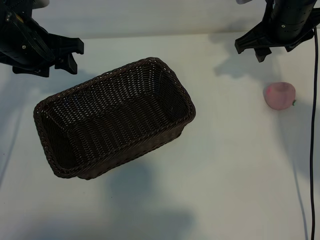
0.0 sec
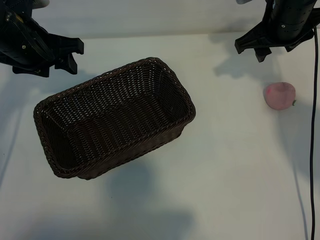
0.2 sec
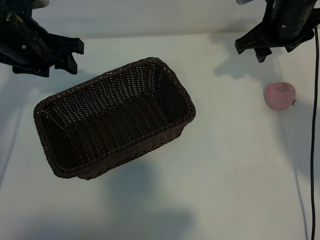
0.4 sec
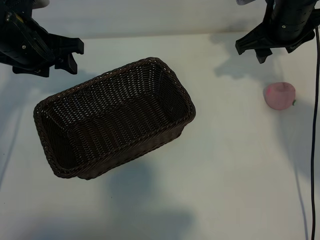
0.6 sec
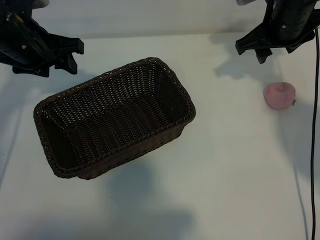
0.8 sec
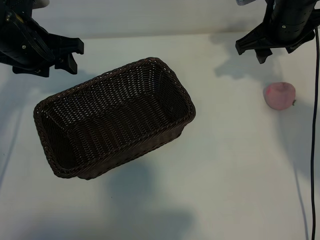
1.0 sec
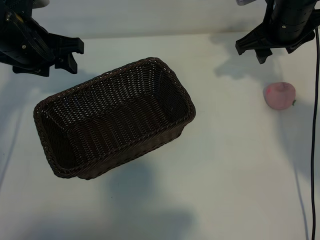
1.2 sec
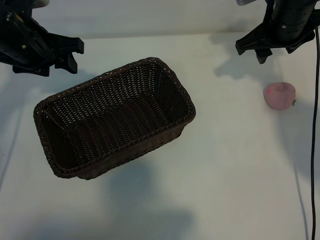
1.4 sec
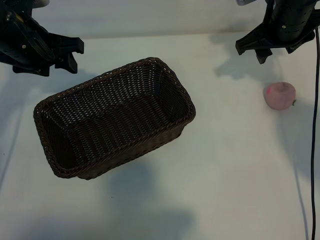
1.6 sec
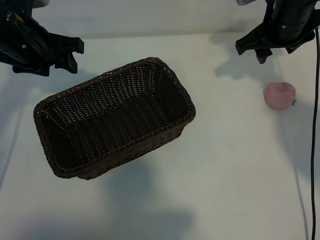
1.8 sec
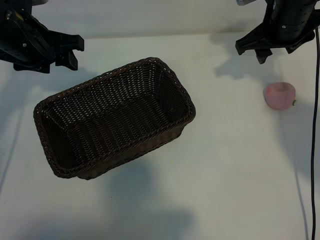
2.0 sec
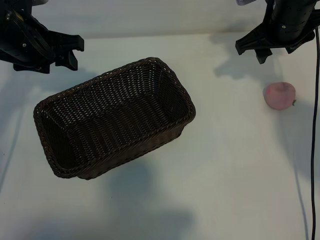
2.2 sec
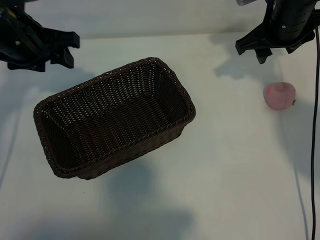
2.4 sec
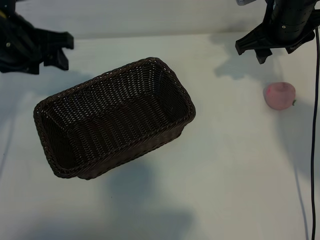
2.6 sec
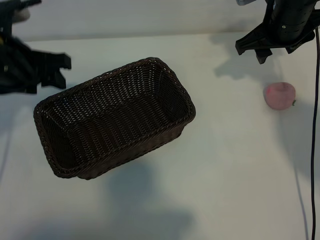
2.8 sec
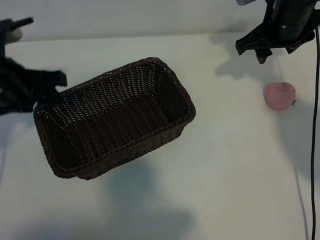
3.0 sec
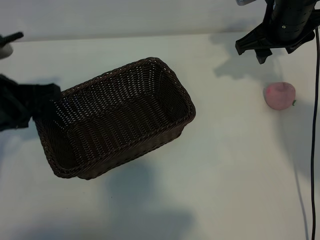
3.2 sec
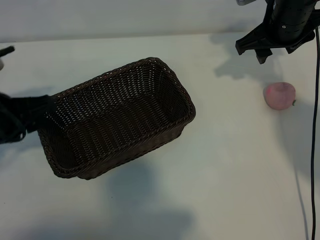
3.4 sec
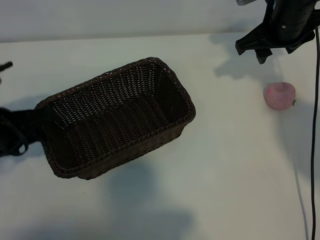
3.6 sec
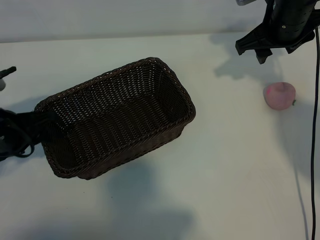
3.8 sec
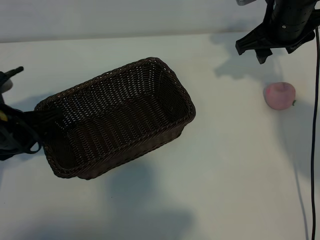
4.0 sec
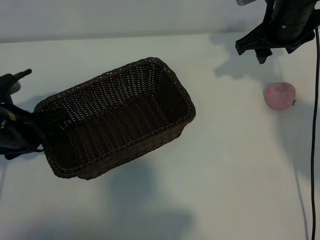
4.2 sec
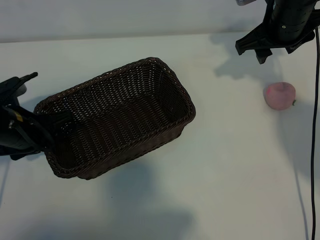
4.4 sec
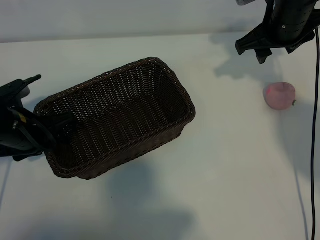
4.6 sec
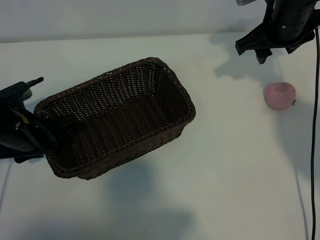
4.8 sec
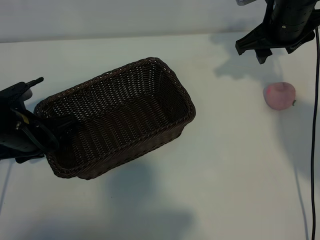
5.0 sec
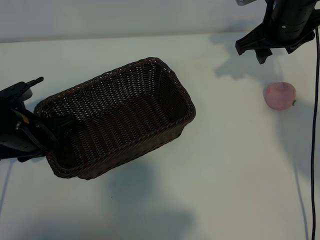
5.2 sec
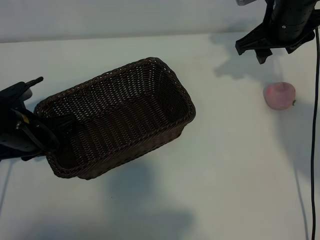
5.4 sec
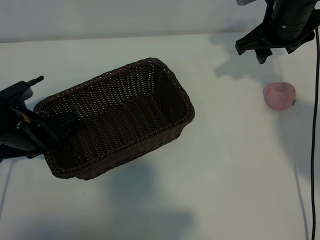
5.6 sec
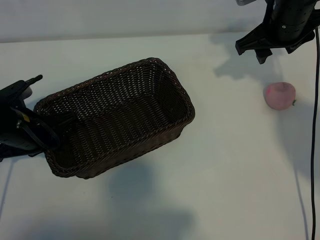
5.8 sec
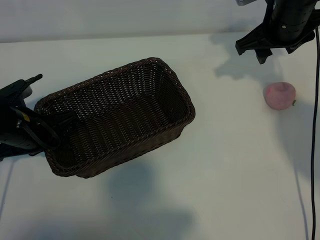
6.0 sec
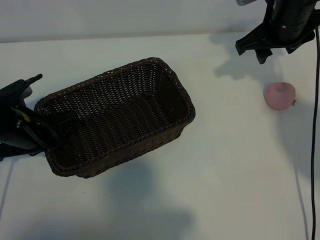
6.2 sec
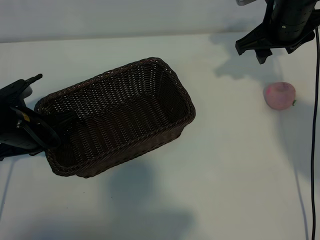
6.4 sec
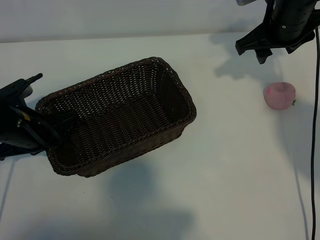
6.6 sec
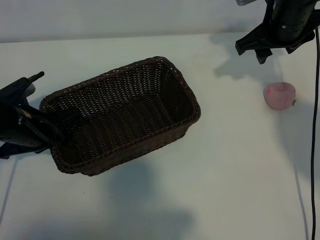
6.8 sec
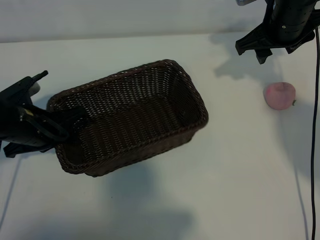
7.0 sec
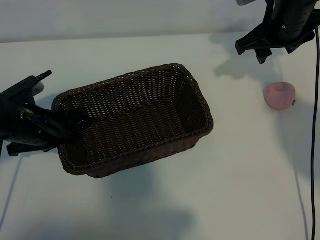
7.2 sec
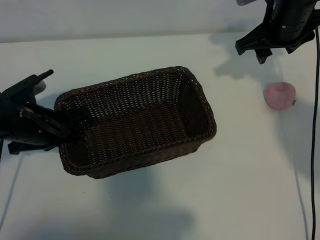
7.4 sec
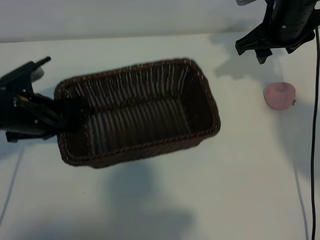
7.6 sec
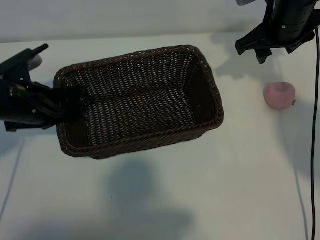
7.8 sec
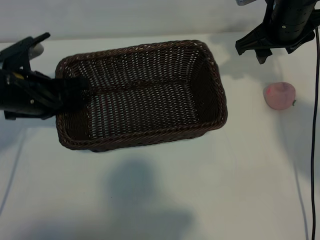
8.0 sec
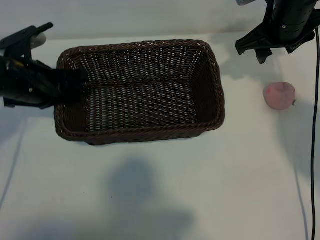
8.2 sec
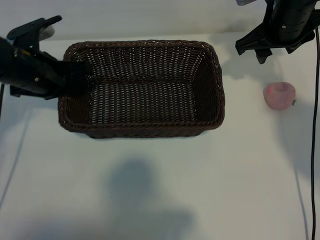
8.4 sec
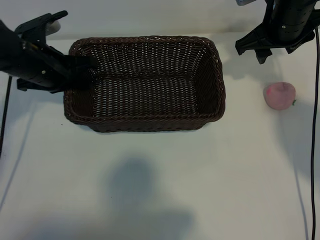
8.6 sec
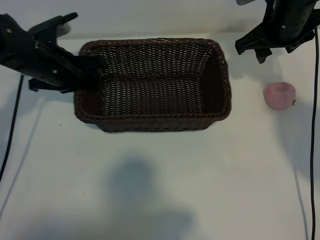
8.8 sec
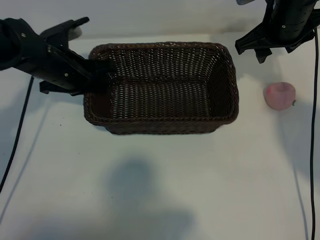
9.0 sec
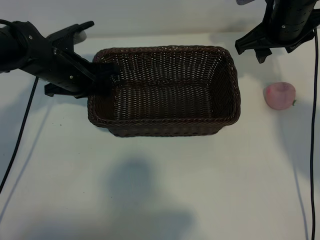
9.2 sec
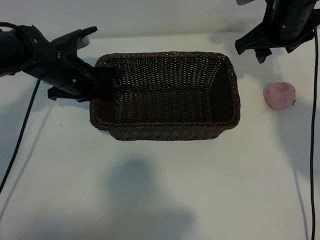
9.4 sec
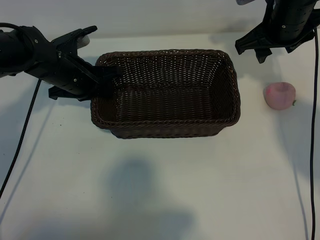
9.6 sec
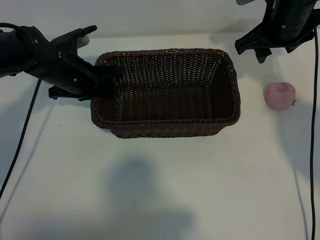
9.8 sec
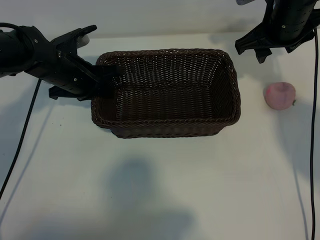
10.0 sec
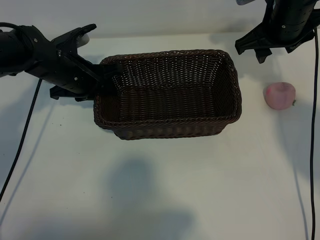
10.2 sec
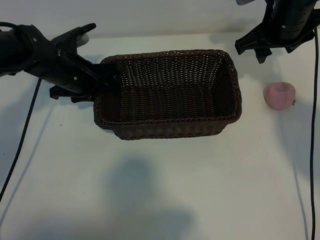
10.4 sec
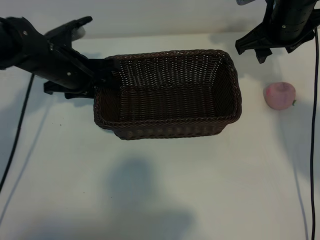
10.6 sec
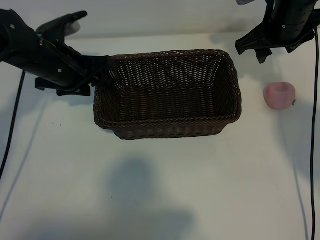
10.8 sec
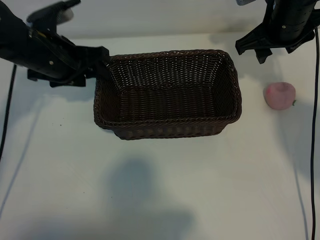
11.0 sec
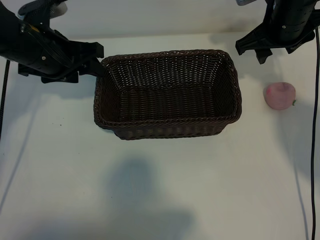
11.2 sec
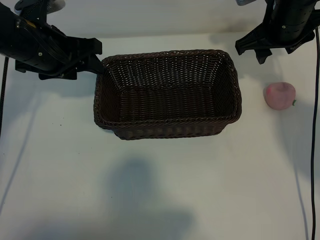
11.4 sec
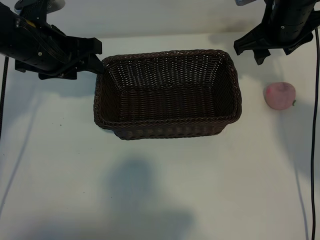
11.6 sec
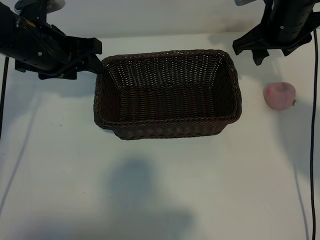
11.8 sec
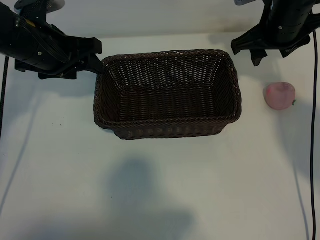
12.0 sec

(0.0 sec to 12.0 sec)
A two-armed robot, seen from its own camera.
Task of the whole recording: pick up the peach and put it into the basket.
Step, 2.2 sec - 5.8 sec: Grasp the basket with left gripper.
Step, 6.2 sec - 10.6 sec: Place the basket in the center of view with left gripper.

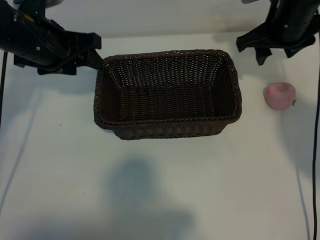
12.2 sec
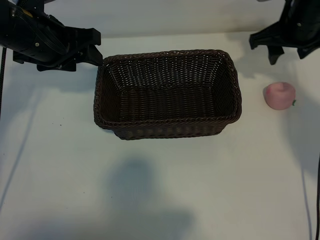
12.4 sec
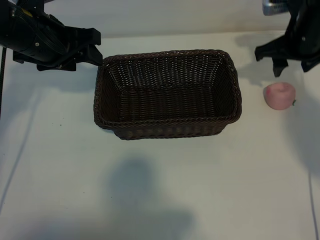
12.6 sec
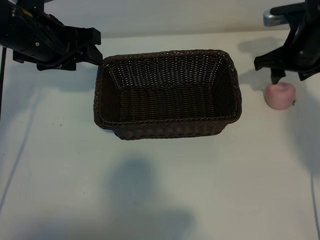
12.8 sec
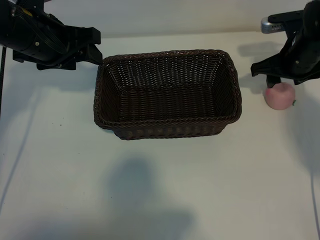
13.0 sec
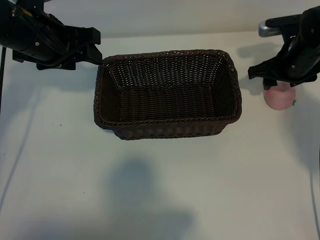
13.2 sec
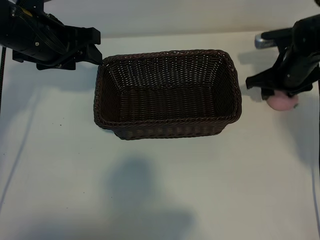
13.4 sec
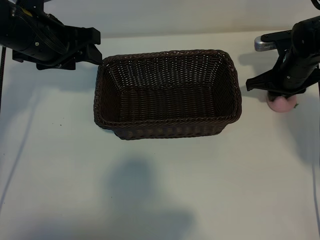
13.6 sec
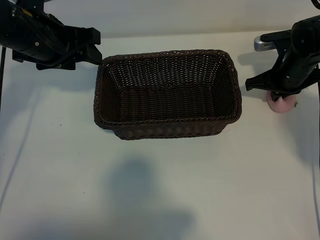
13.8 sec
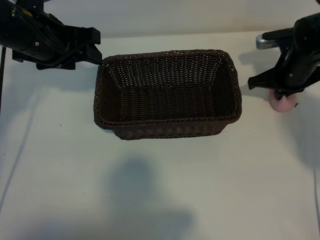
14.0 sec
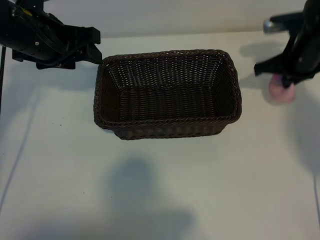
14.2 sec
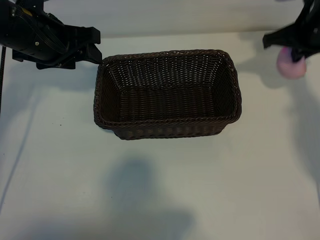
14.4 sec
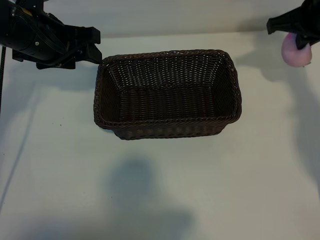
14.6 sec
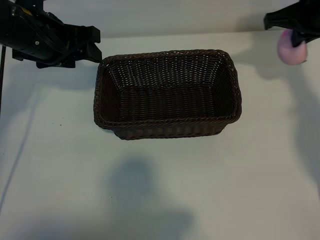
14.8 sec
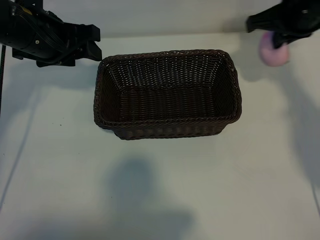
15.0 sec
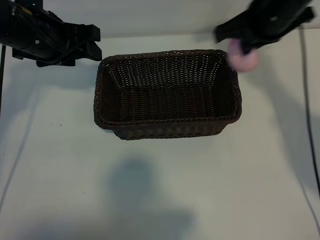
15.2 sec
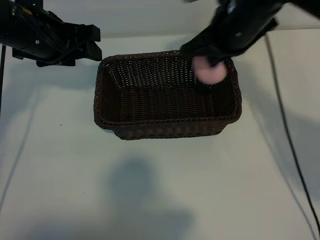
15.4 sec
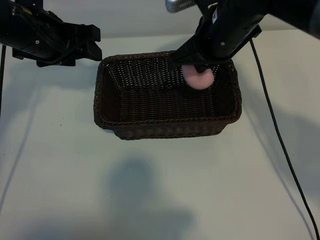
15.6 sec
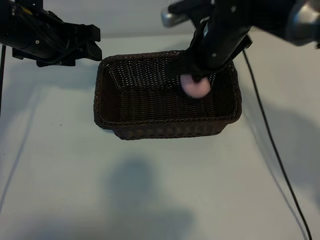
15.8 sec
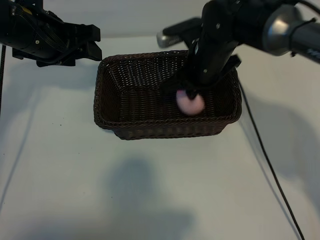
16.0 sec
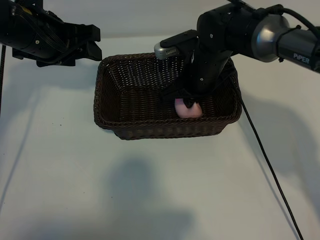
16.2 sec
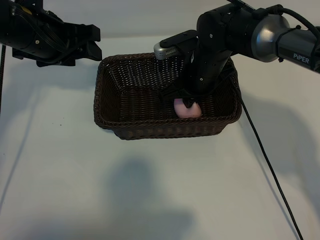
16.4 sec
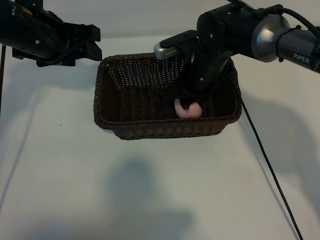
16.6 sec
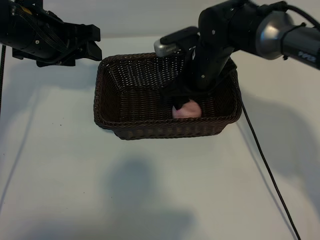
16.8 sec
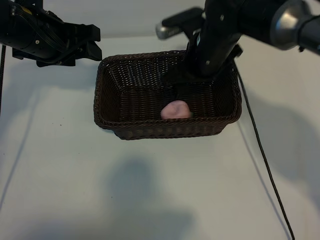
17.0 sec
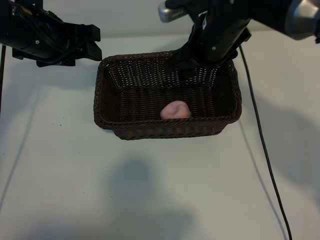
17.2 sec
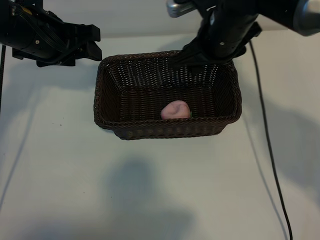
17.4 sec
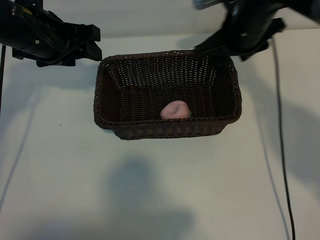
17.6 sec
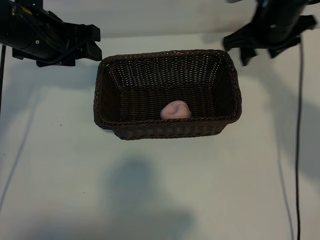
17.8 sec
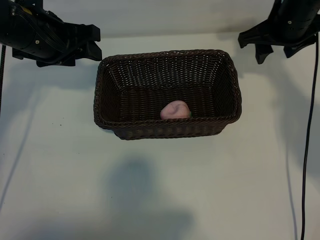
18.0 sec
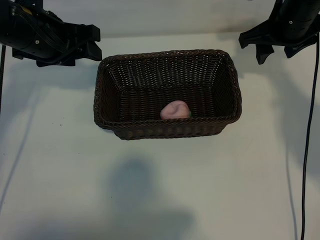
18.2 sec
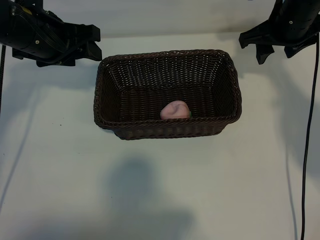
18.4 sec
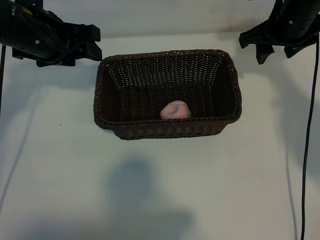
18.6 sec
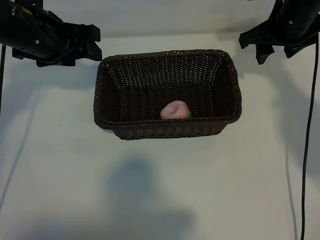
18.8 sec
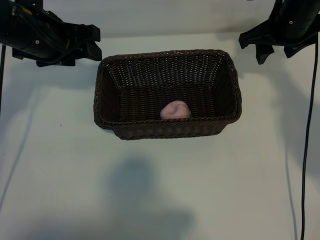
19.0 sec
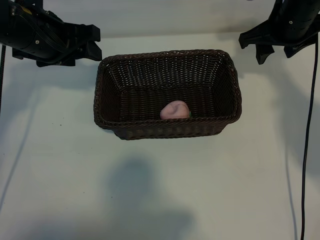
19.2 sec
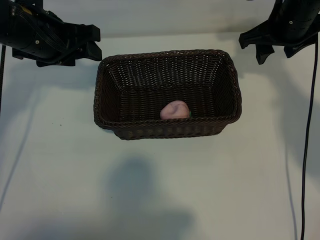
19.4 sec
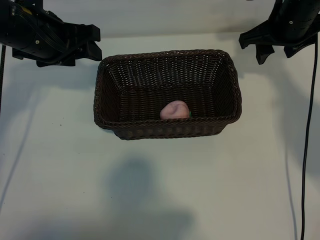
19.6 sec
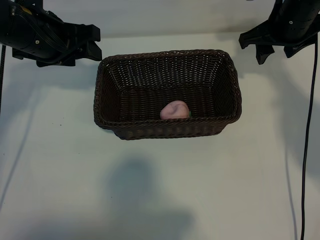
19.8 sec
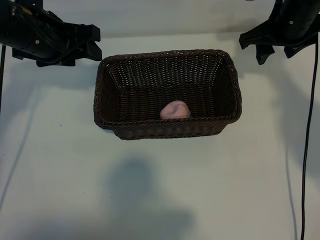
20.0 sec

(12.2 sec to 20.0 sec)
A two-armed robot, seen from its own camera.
Task of the whole recording: pick up the peach and put it into the basket.
Step, 12.2 sec - 13.8 sec: Grasp the peach with right gripper.
Step, 14.0 sec - 16.8 sec: Place the peach in the basket with right gripper.

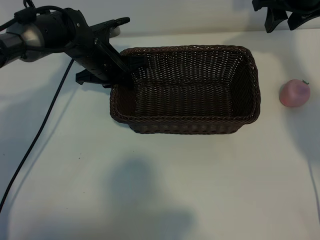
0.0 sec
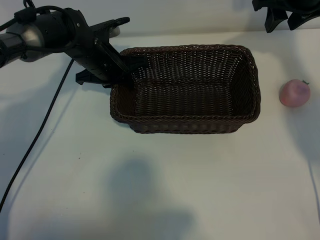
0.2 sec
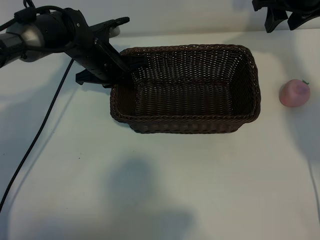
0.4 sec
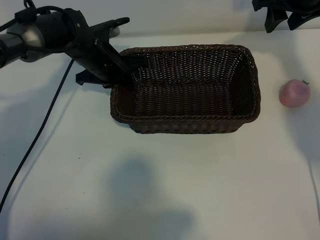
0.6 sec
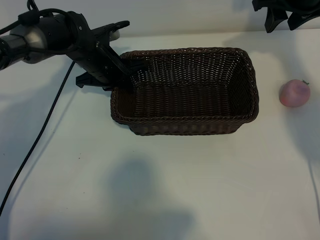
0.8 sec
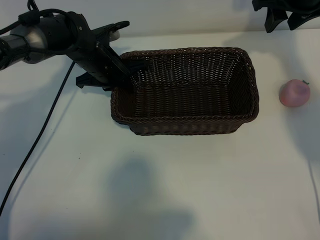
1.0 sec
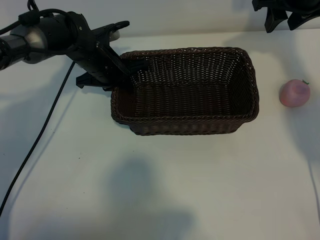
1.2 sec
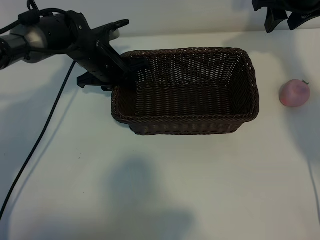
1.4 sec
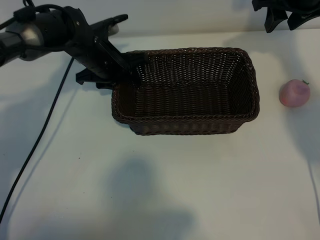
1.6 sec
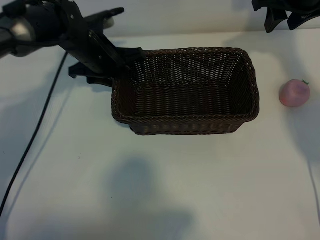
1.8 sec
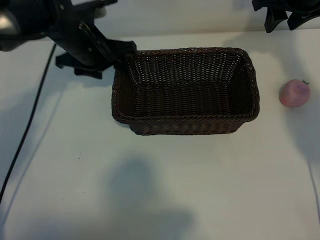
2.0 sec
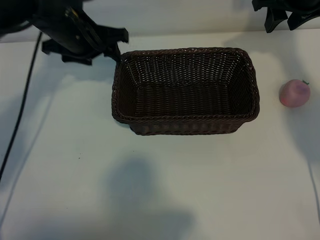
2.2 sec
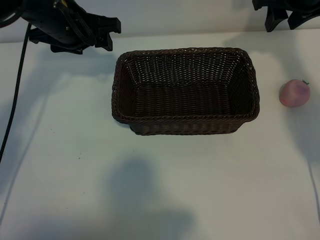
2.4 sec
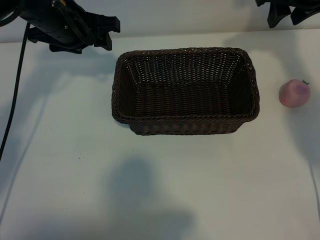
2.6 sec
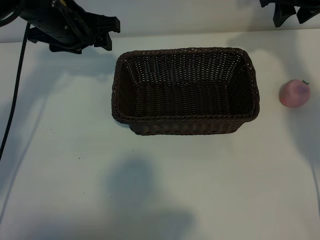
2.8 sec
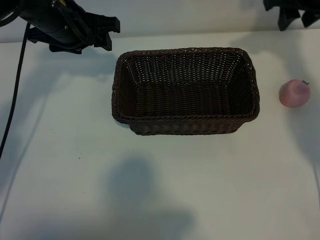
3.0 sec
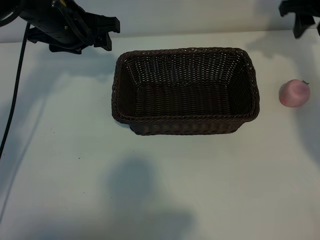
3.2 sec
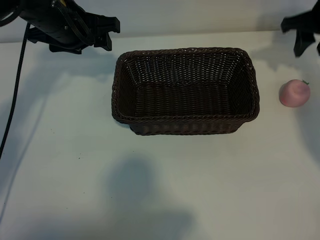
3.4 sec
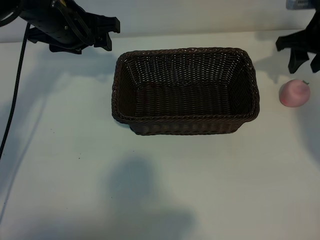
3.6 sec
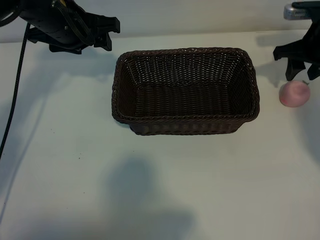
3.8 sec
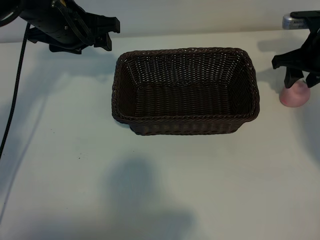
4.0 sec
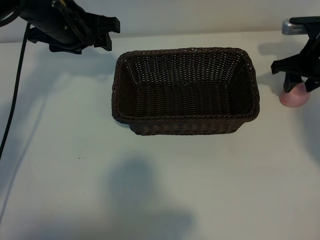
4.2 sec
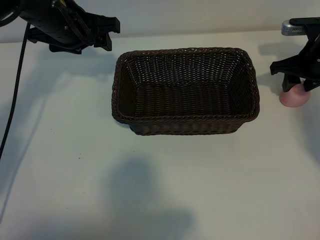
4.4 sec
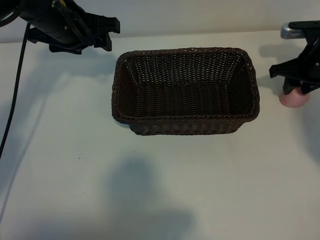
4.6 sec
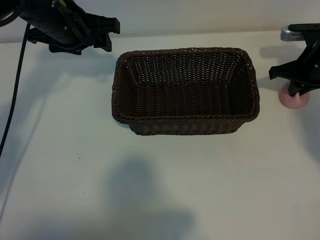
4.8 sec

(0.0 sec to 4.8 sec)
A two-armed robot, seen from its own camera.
Task of the whole recording: pick up the peach and put it into the basket.
Step, 2.0 sec - 4.8 sec: Grasp the peach with right gripper.
